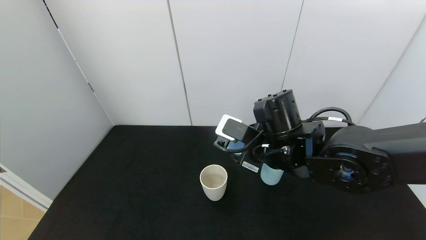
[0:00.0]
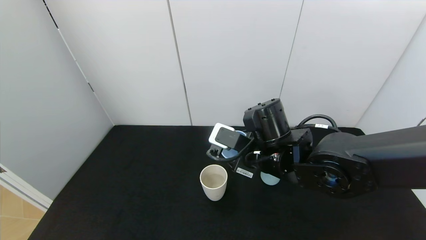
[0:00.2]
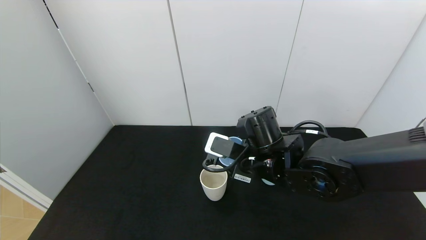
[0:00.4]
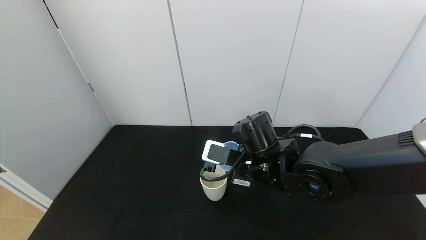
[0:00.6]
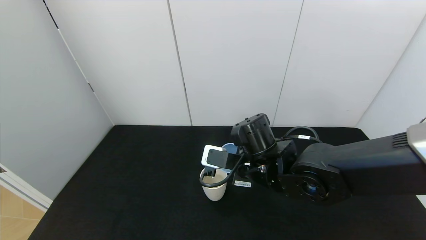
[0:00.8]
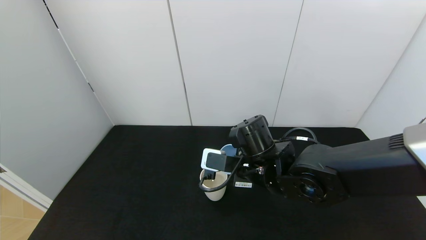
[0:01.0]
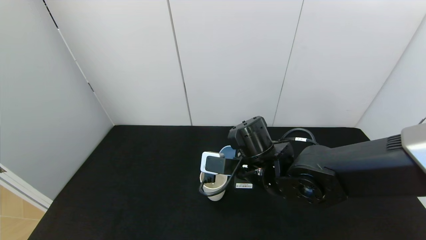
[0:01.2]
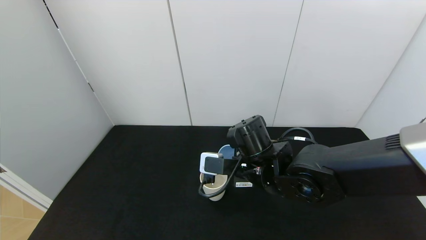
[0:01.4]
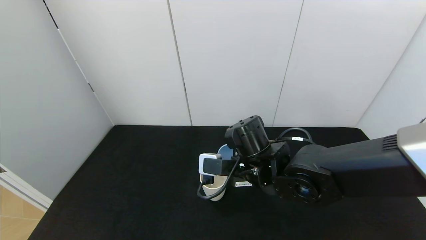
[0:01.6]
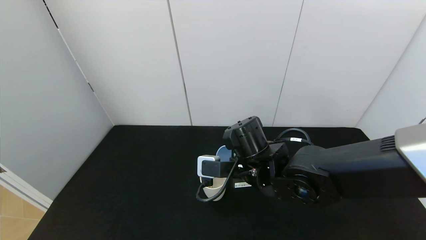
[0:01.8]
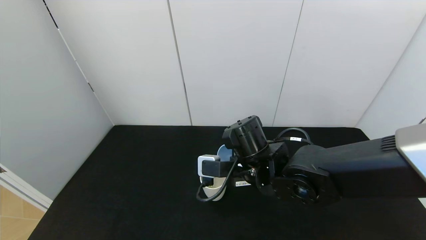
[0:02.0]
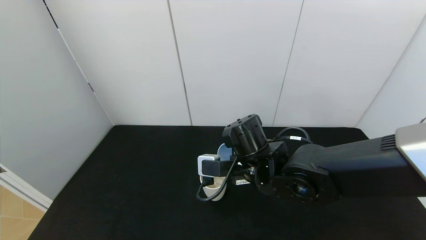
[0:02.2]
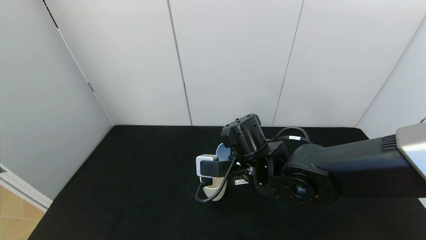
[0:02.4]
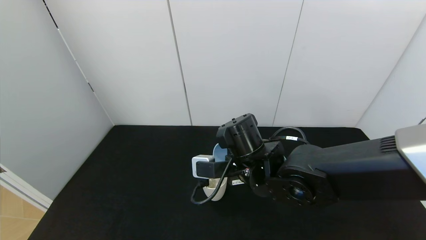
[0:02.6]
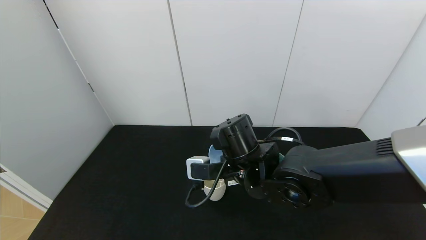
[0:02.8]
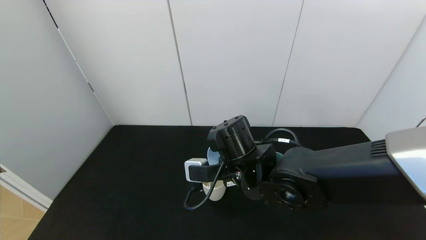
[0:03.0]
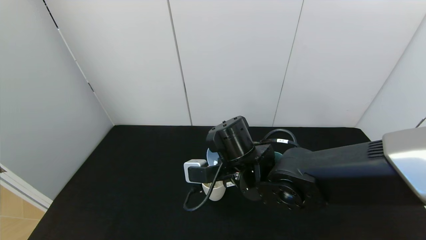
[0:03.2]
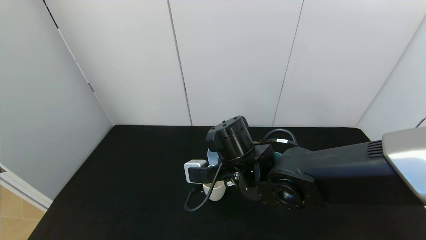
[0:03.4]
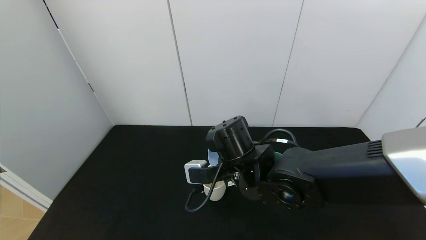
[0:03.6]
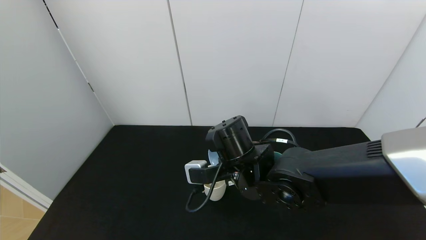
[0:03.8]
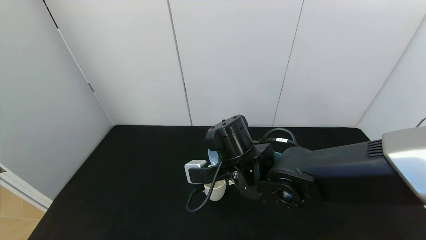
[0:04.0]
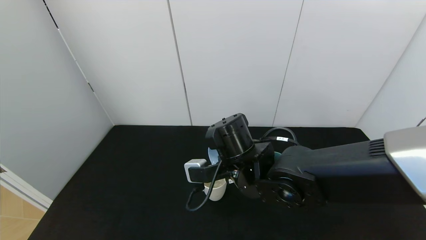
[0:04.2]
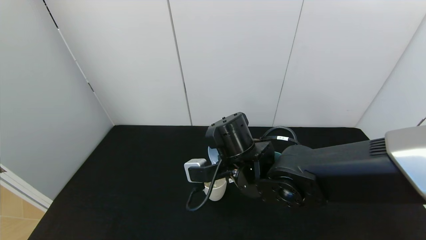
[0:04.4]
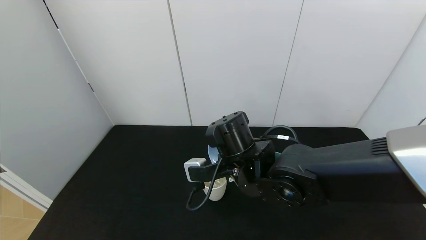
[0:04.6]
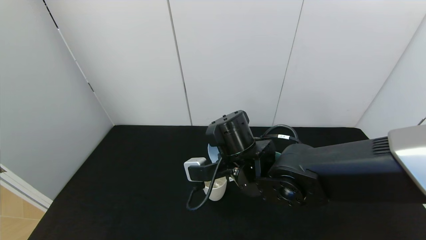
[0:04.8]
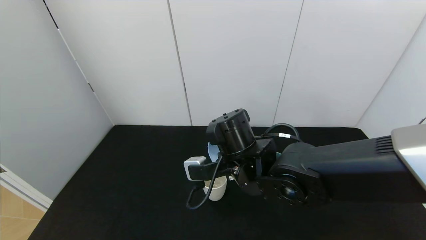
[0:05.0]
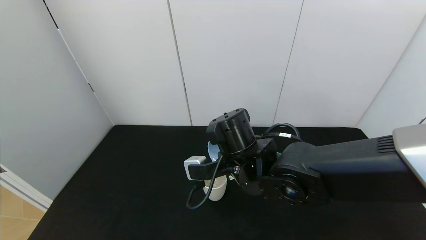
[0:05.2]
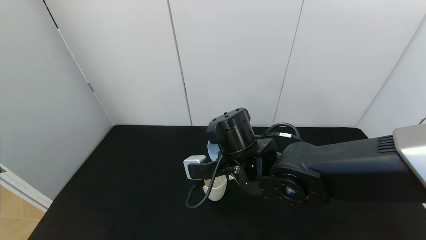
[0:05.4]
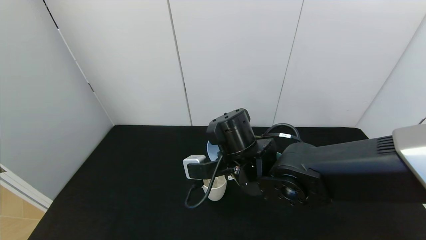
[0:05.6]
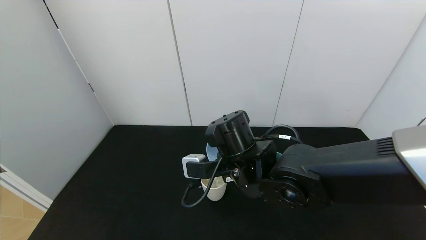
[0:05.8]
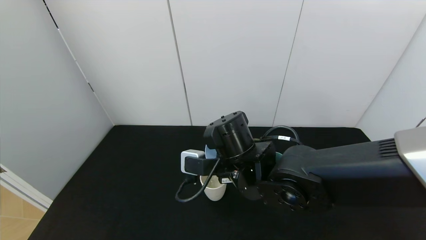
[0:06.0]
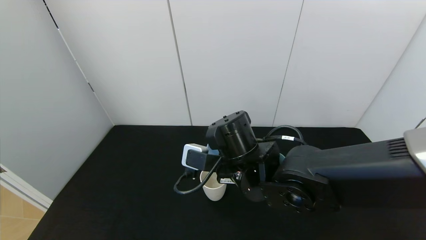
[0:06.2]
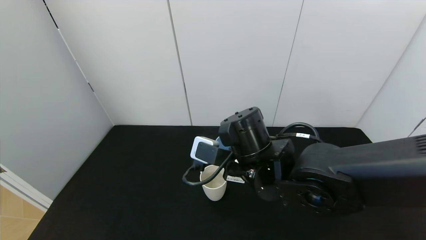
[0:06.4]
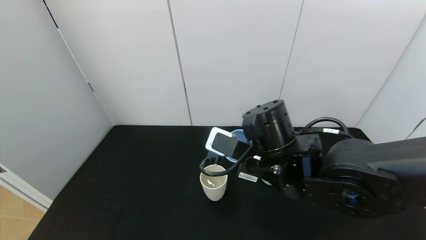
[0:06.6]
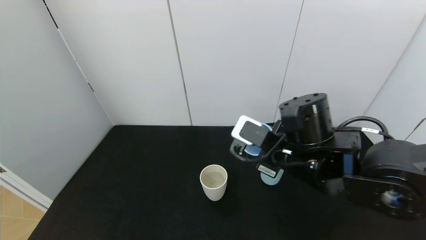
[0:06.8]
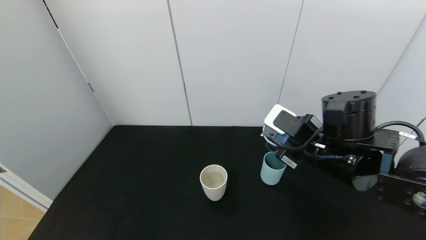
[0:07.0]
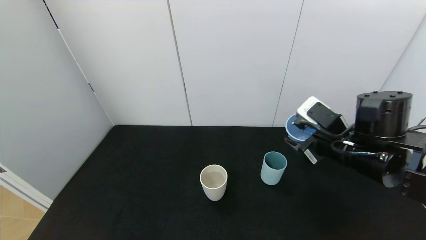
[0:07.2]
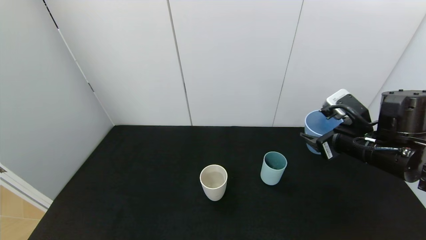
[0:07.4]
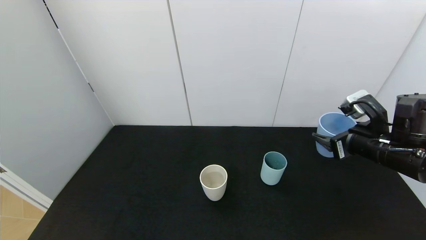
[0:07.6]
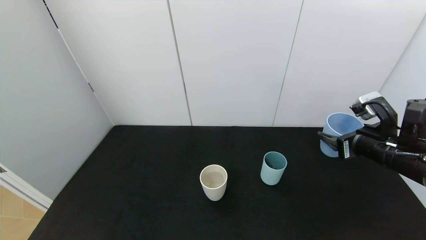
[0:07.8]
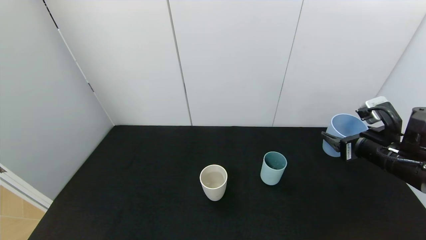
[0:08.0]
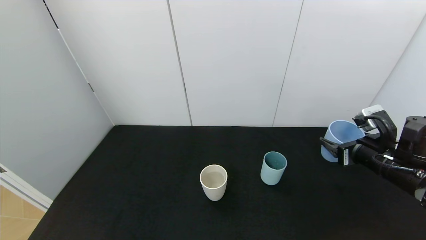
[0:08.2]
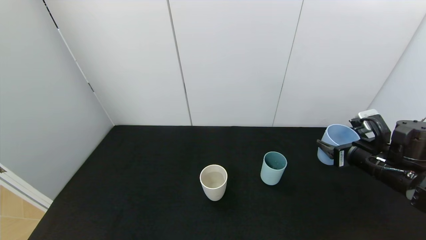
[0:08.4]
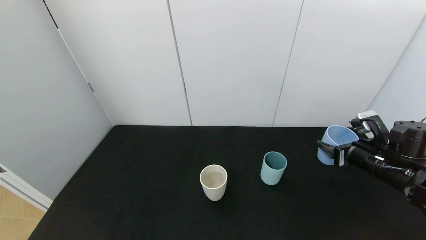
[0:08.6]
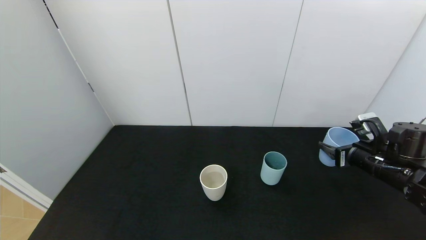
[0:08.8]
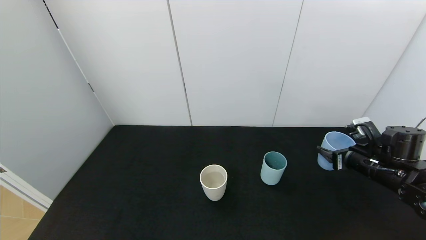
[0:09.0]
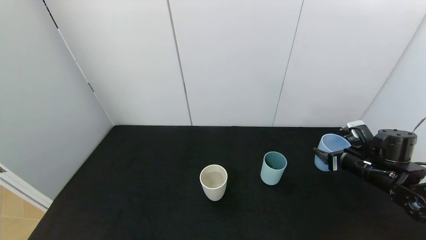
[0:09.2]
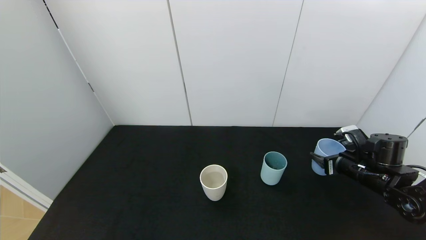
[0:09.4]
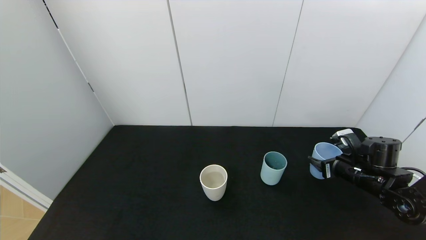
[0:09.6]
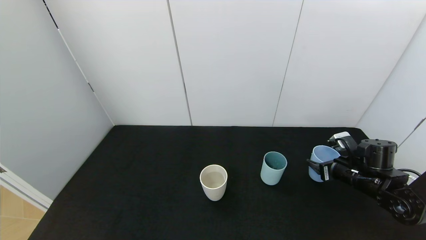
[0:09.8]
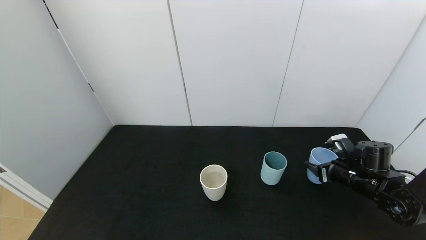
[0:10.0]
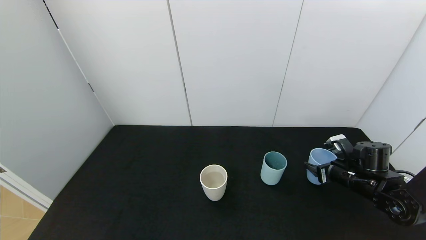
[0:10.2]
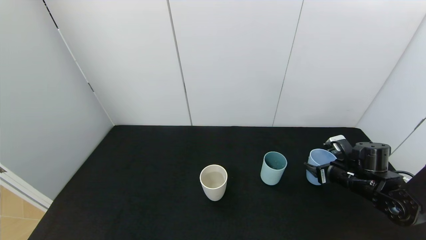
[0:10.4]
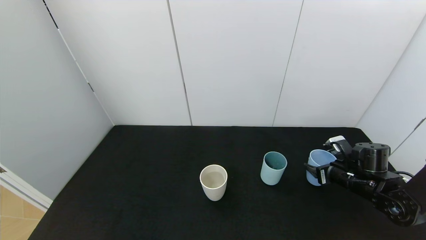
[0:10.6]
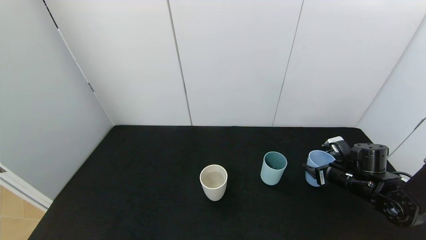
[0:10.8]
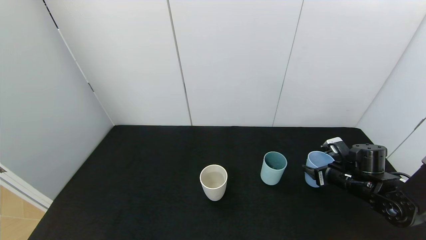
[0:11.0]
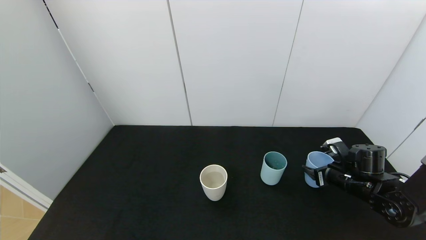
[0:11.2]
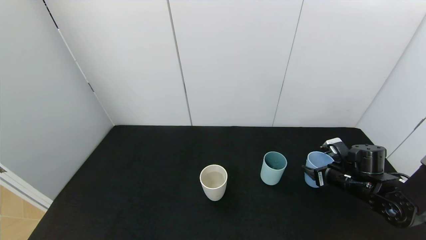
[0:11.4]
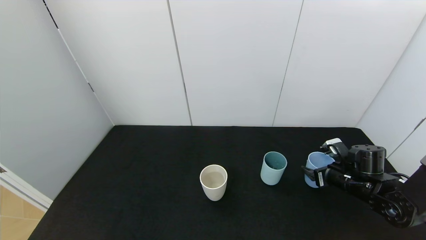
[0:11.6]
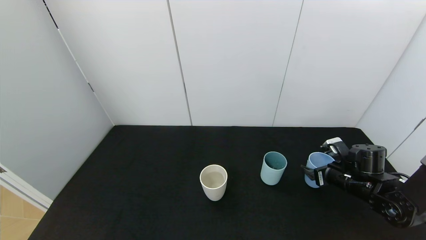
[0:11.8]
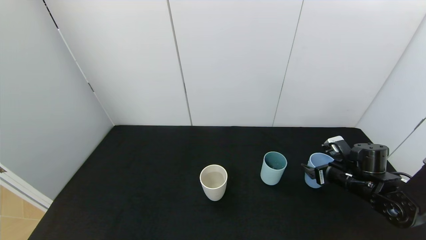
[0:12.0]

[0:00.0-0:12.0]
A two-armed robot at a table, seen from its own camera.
Task of the whole recording: use the gripper to pour the water into the other two cups on black table.
Step, 0:00.0 to 0:06.8: Pour water into the gray plastic cup with right gripper.
0:00.0 to 0:01.6: The right gripper shifts by roughly 5 cm.
0:01.6 to 0:06.0: The grippers make only small movements.
0:06.0 to 0:07.6: The right gripper travels to the right by roughly 25 cm.
0:07.6 to 0:09.0: The right gripper travels downward by some 10 cm.
0:09.0 to 0:10.4: The right gripper is displaced downward by approximately 5 cm.
0:10.4 to 0:12.0: The right gripper opens its fingers.

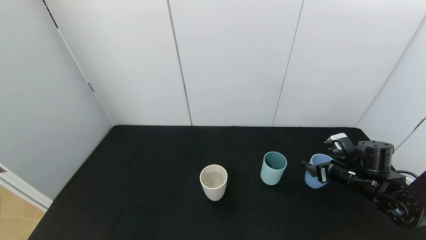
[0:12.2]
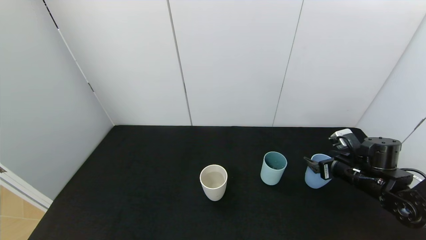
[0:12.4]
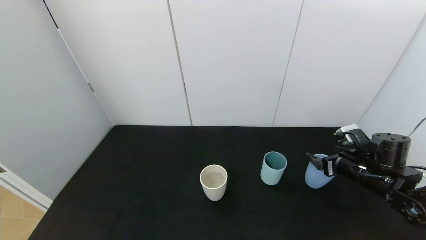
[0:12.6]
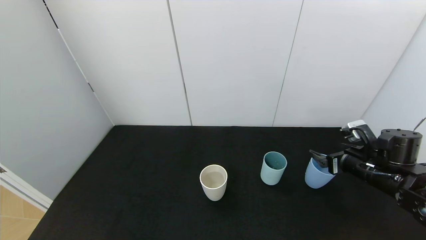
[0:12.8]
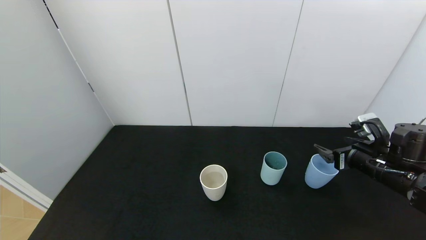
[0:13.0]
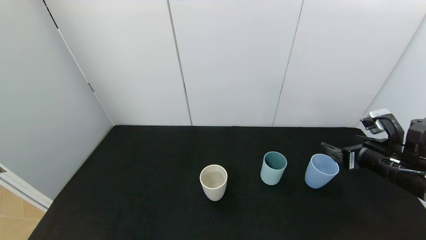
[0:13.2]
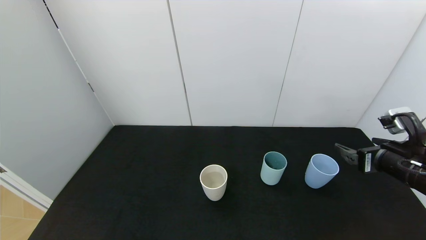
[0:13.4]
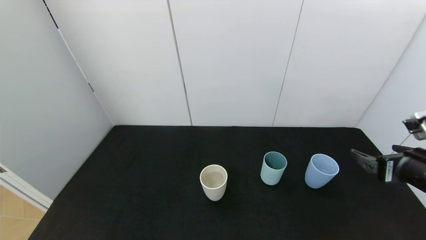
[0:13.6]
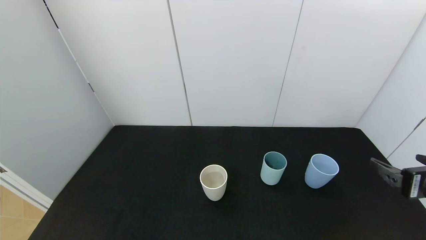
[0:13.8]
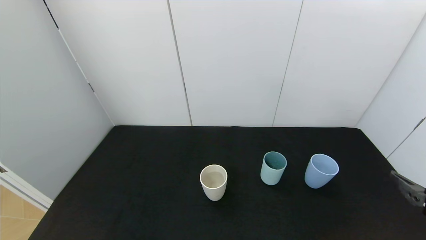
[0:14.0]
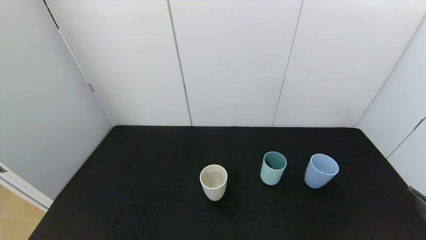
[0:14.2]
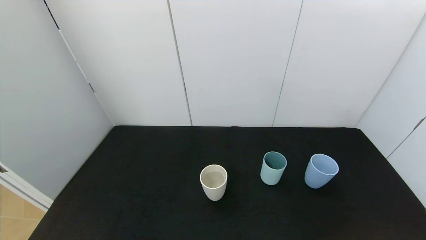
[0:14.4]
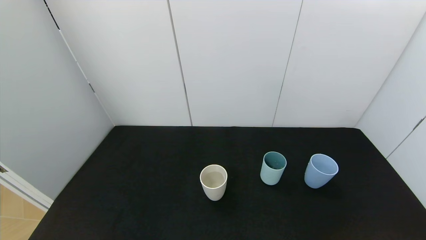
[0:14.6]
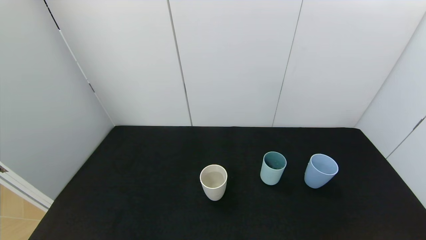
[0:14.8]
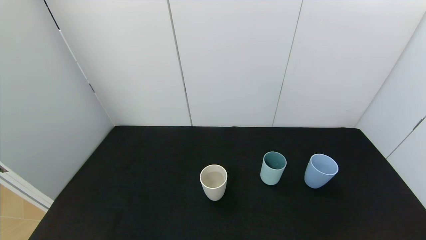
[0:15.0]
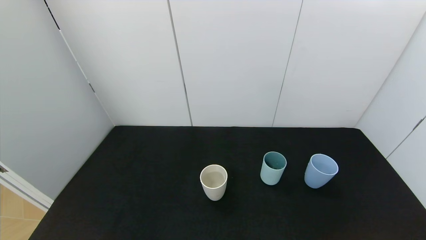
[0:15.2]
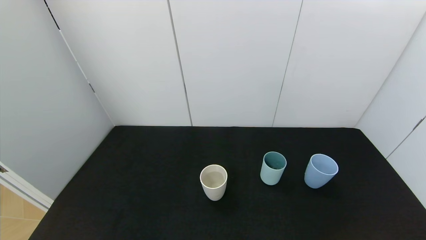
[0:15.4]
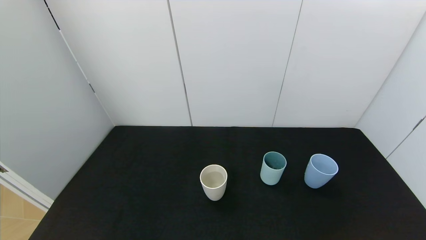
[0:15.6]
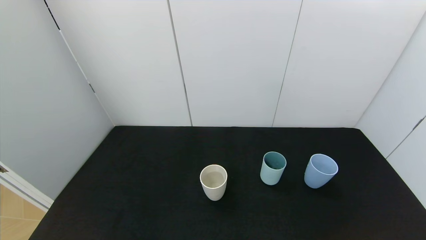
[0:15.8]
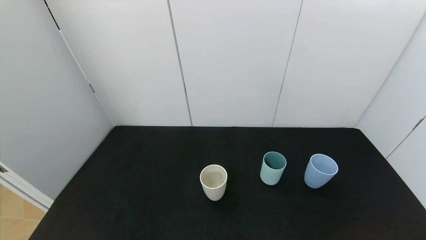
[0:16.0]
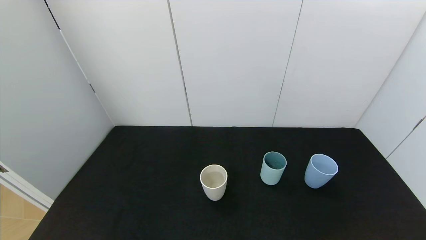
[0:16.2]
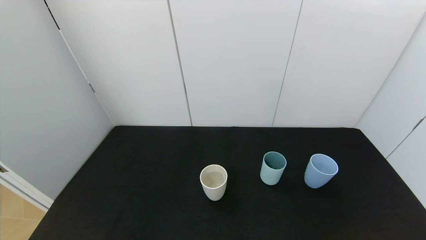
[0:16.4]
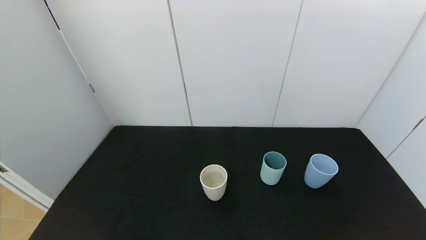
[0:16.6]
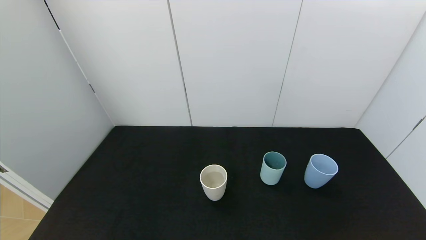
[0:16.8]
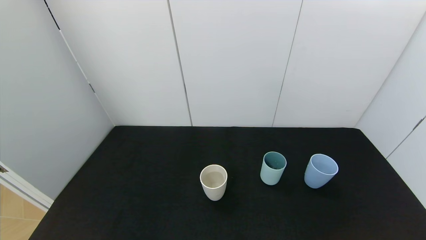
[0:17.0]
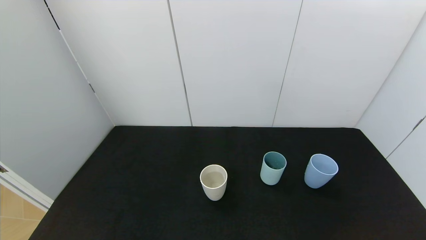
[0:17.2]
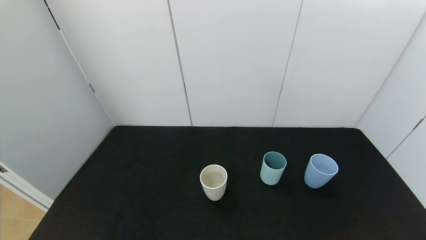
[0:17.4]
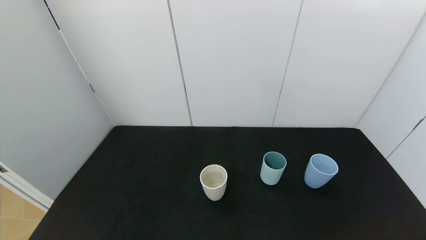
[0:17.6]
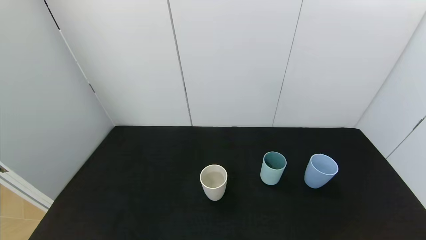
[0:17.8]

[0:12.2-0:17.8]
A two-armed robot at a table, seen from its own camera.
Task of the whole recording: use the gripper to pour the water into the other two cups on black table.
0:12.2 to 0:13.6: The right gripper moves backward and upward, roughly 15 cm.
0:13.6 to 0:15.0: The right gripper moves backward, roughly 20 cm.
0:16.4 to 0:17.8: Neither gripper changes place.
